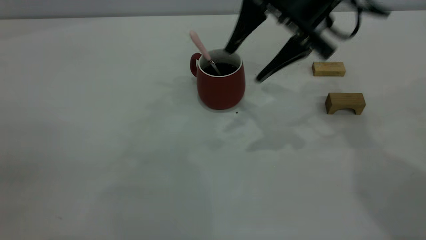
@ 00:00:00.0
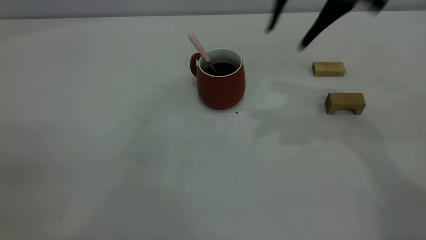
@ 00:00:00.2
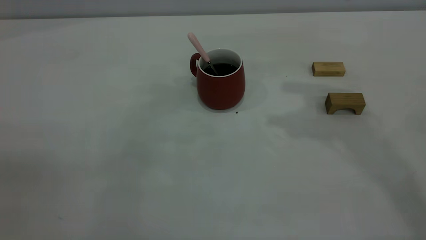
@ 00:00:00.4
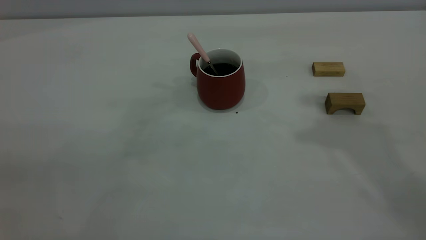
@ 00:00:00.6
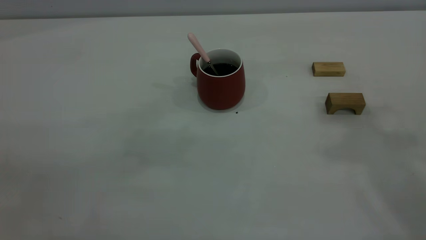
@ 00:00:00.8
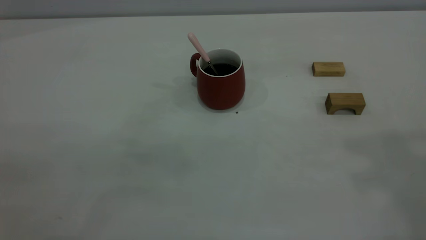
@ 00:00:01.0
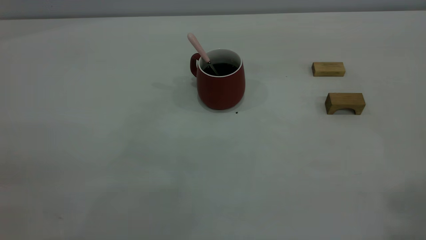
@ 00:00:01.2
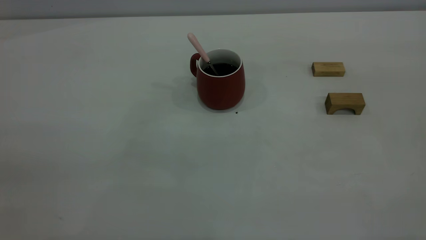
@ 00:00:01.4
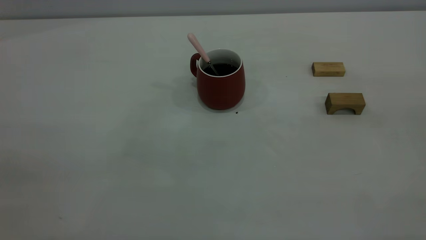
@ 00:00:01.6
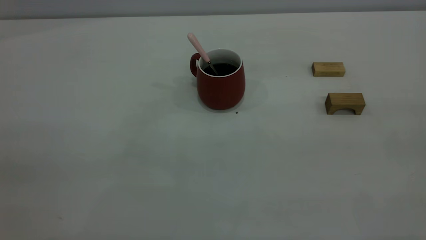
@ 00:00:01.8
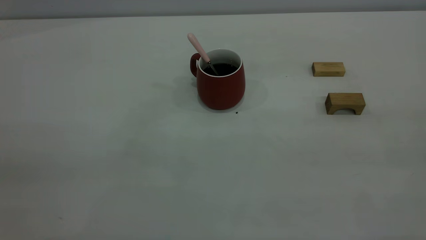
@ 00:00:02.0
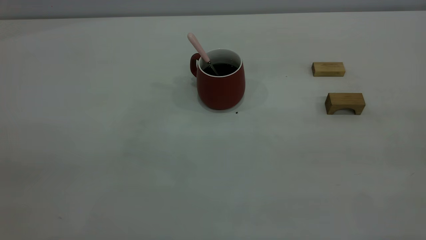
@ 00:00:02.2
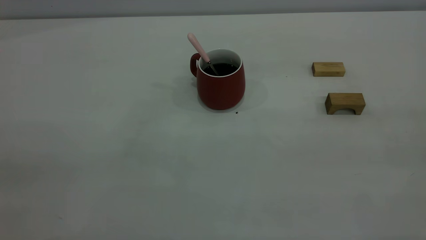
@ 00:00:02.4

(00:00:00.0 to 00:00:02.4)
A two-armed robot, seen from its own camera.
00:00:00.0 - 00:00:01.2: The right gripper moves upward, backward and to the right, some 40 cm, and closes up.
